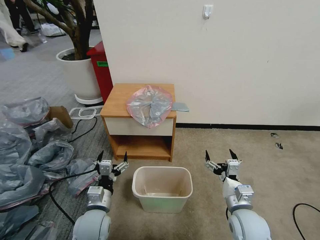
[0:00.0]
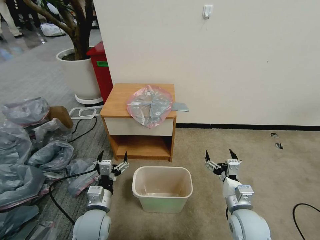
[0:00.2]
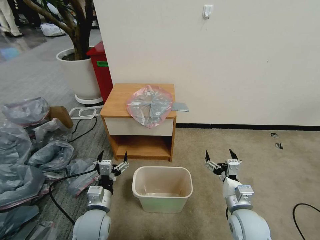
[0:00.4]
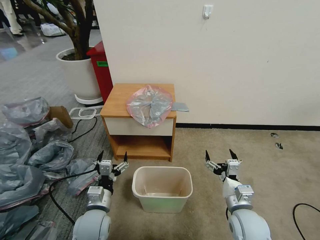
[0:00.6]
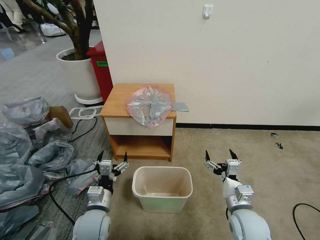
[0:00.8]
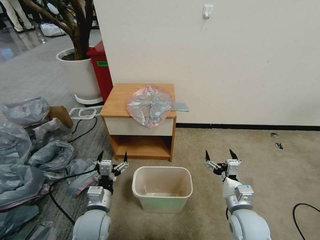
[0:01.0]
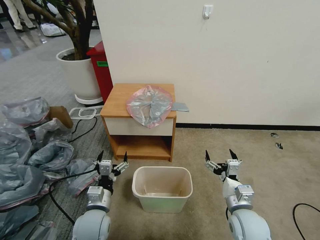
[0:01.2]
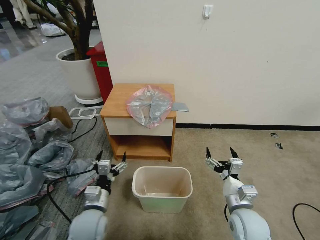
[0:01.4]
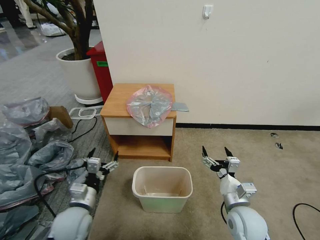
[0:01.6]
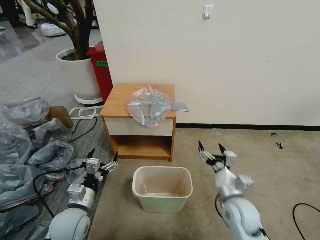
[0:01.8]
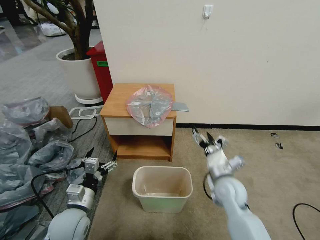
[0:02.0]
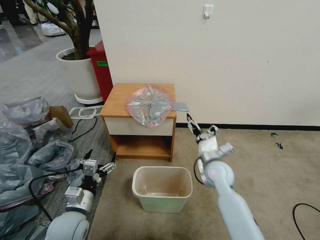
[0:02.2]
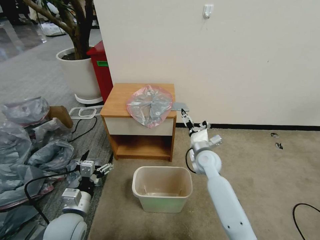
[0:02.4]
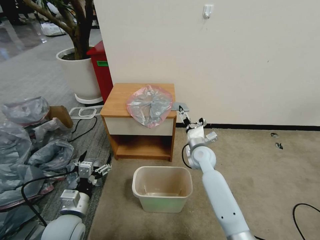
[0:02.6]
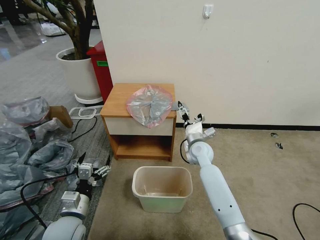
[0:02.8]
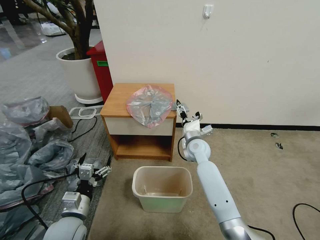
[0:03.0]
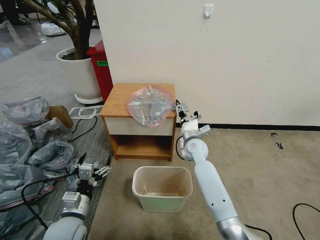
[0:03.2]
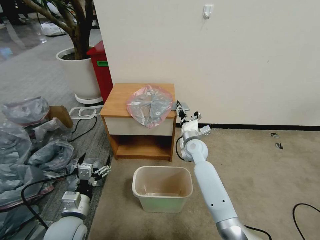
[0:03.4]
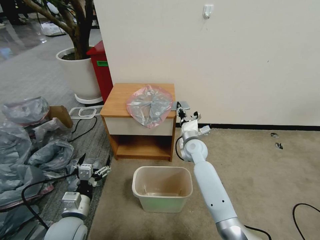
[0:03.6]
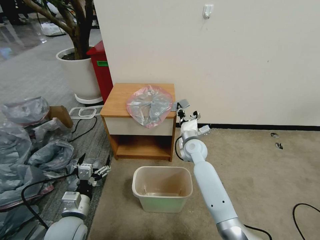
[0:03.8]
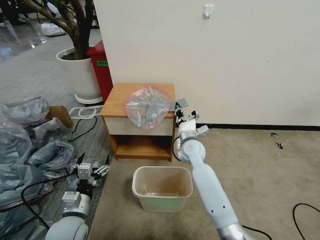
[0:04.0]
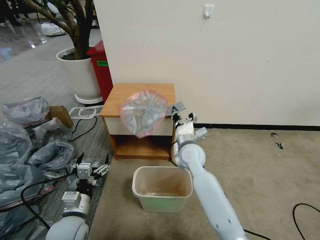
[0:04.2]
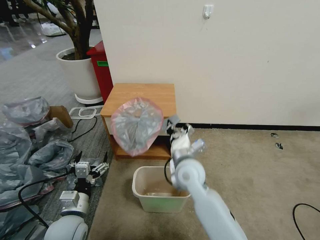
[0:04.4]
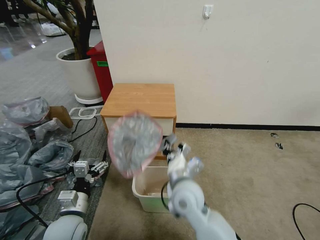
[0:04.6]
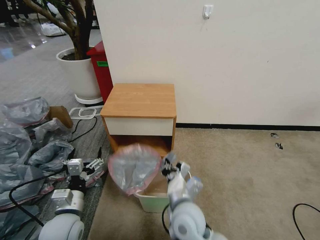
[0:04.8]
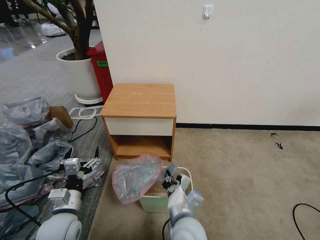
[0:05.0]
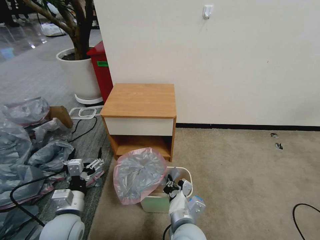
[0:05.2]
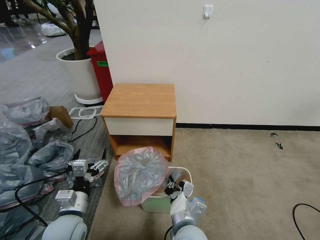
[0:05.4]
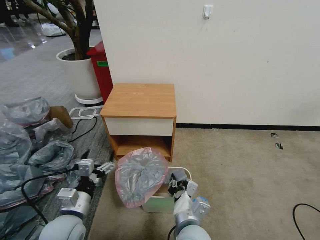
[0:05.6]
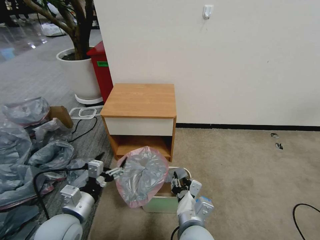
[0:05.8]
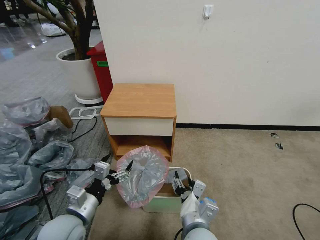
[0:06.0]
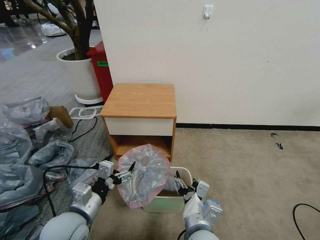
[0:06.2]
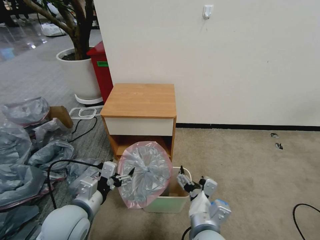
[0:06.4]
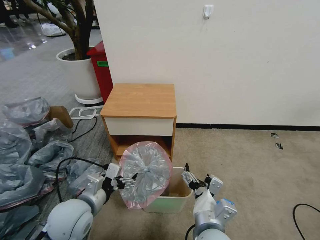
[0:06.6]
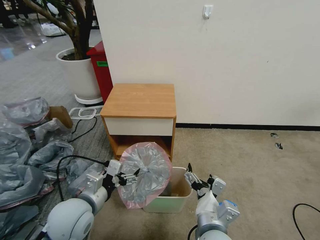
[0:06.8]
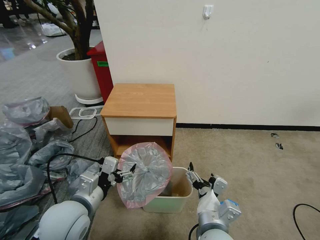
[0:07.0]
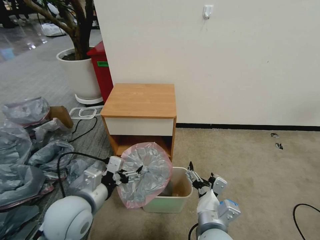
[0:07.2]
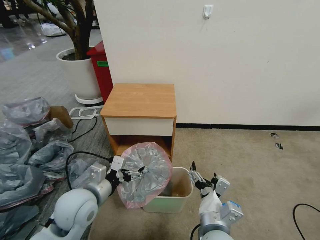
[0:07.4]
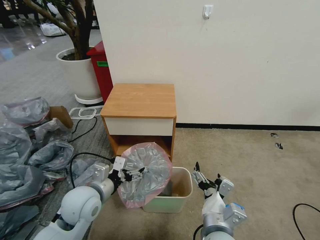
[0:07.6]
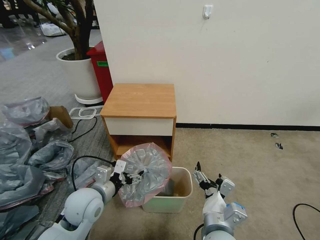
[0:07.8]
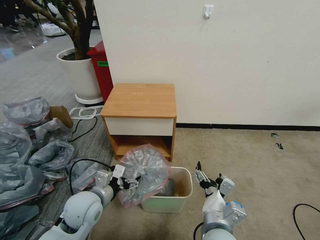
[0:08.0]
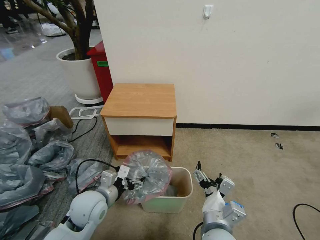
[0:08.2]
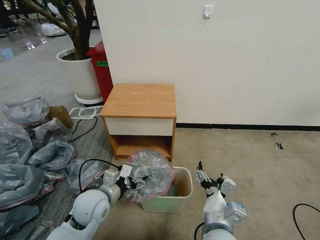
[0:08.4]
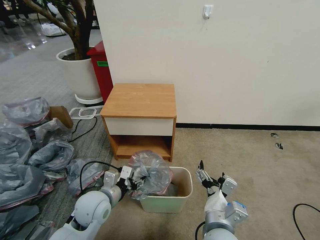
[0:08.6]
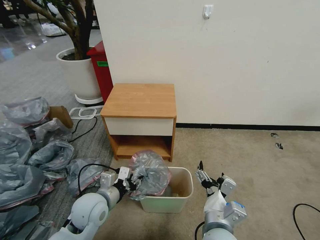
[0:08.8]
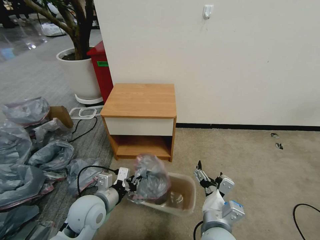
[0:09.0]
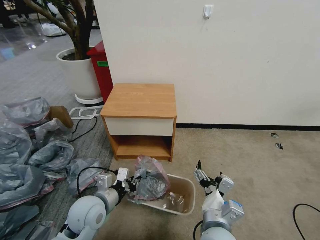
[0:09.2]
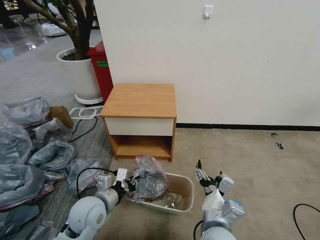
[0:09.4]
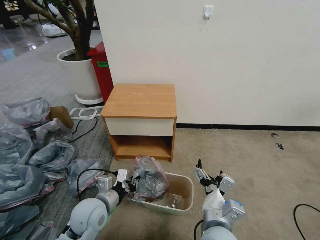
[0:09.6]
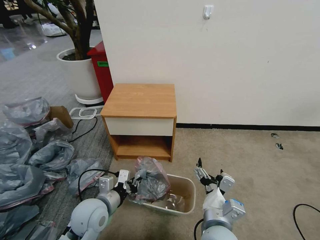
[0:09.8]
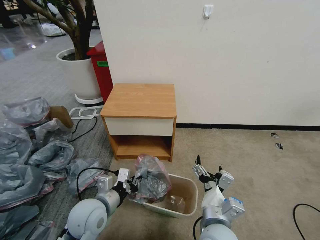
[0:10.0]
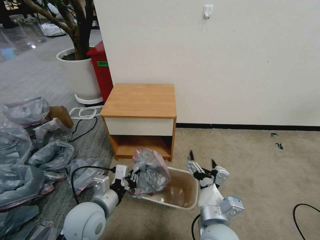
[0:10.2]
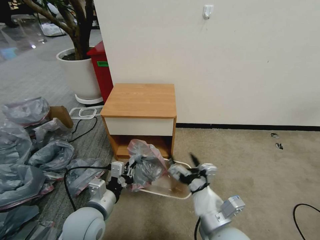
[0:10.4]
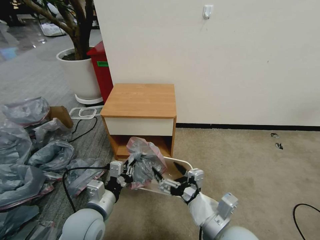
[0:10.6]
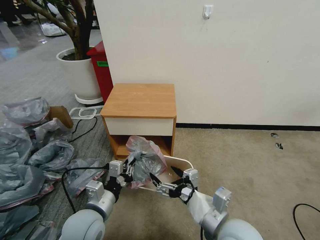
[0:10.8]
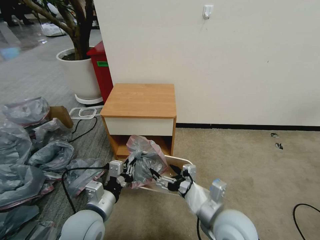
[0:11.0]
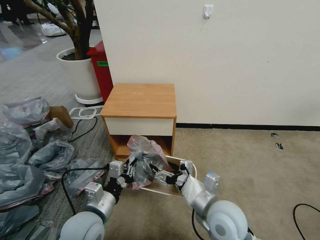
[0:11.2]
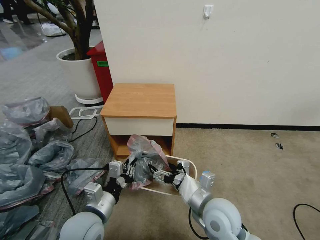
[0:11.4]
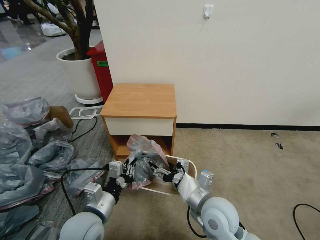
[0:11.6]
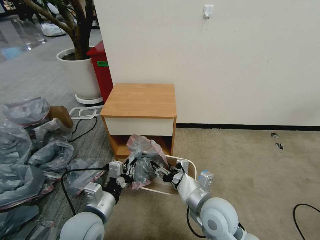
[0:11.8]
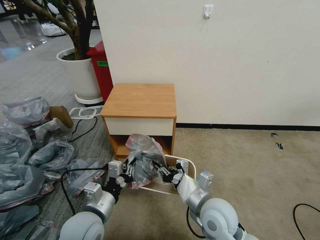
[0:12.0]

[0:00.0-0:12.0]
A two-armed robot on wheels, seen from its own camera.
Task of the whole recording: Pick up the garbage bag from the table and place it over the trash can.
0:01.6 to 0:03.0: The right gripper heads forward, covering roughly 25 cm.
0:03.0 to 0:04.4: The right gripper goes some 15 cm backward, to the left and upward, and closes its fingers.
0:04.4 to 0:06.0: The right gripper moves backward, roughly 20 cm, and opens, while the left gripper moves upward, some 5 cm.
0:06.0 to 0:07.6: The left gripper goes roughly 5 cm forward.
0:07.6 to 0:09.0: The left gripper closes up.
0:10.4 to 0:12.0: The right gripper moves forward, some 10 cm, and closes up.

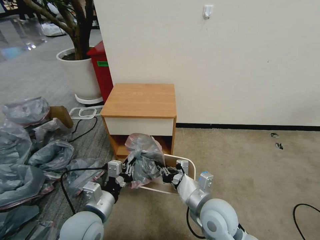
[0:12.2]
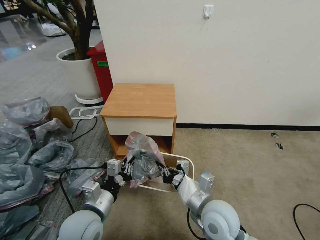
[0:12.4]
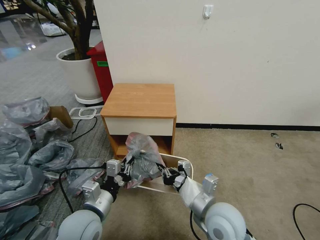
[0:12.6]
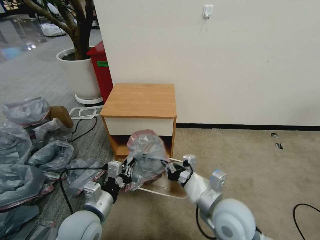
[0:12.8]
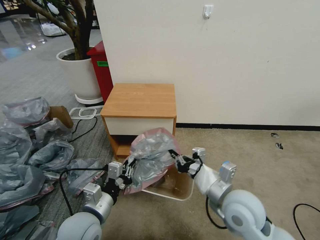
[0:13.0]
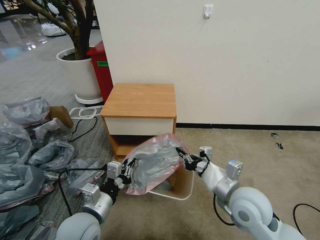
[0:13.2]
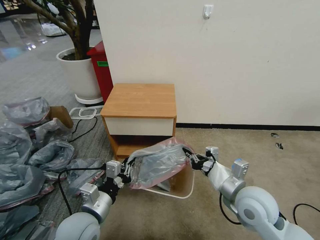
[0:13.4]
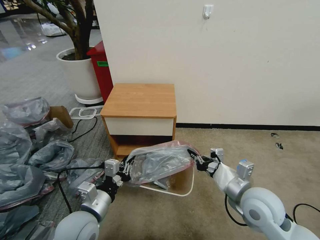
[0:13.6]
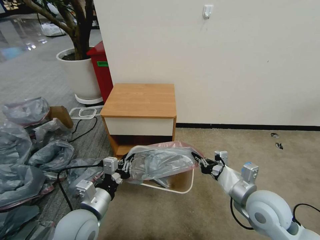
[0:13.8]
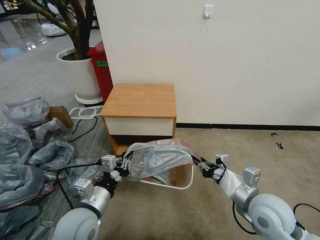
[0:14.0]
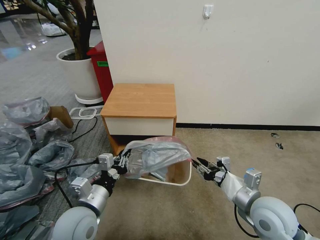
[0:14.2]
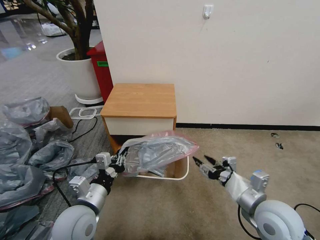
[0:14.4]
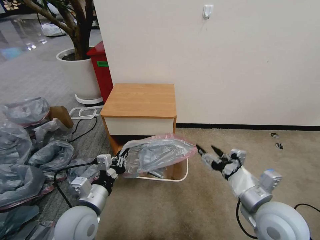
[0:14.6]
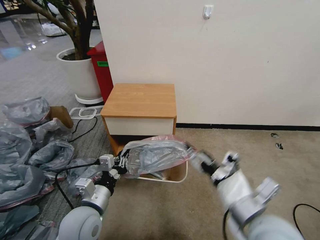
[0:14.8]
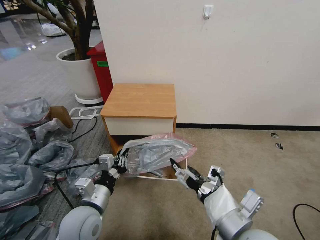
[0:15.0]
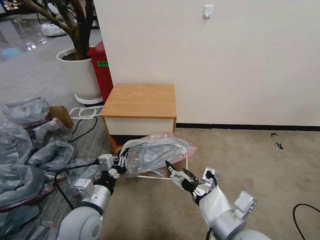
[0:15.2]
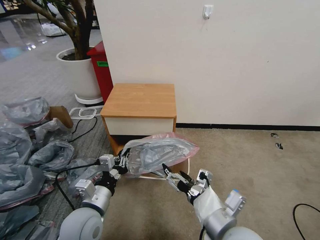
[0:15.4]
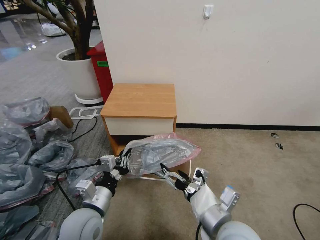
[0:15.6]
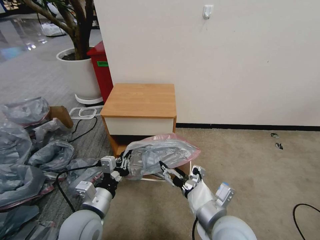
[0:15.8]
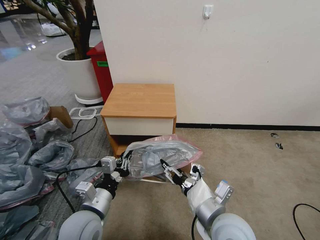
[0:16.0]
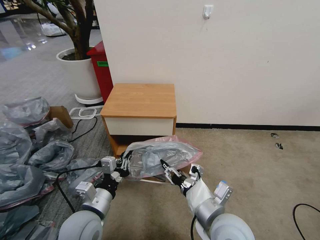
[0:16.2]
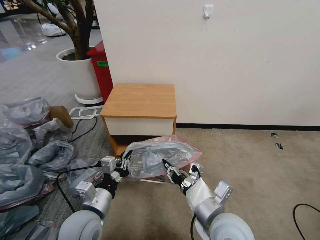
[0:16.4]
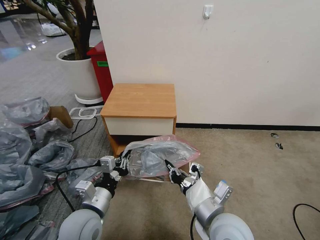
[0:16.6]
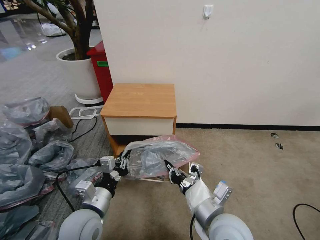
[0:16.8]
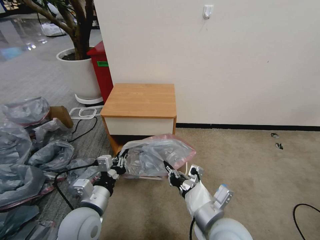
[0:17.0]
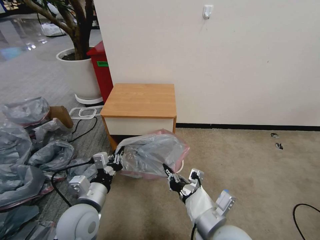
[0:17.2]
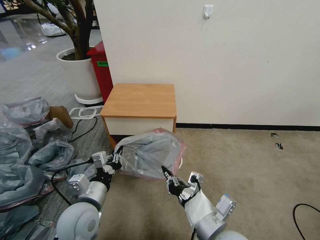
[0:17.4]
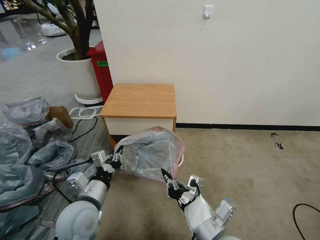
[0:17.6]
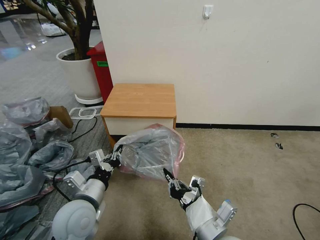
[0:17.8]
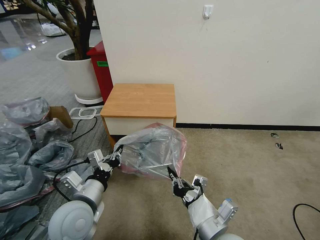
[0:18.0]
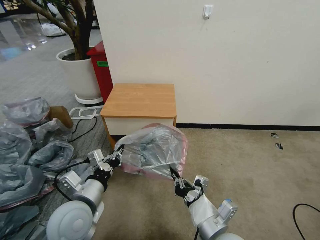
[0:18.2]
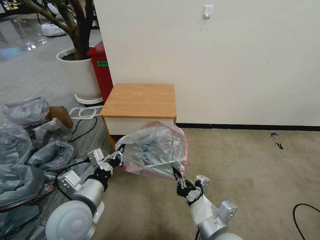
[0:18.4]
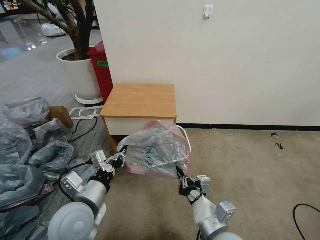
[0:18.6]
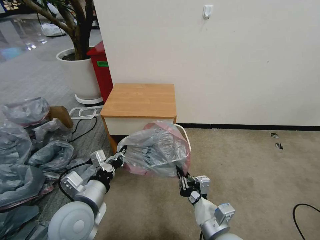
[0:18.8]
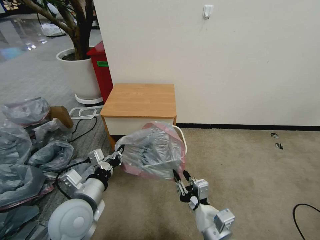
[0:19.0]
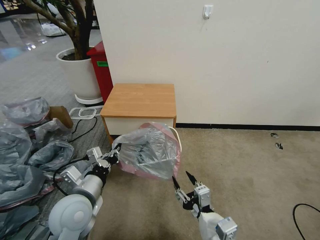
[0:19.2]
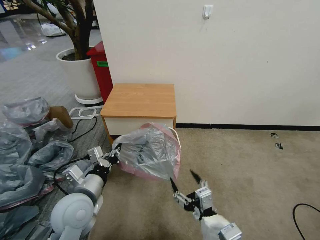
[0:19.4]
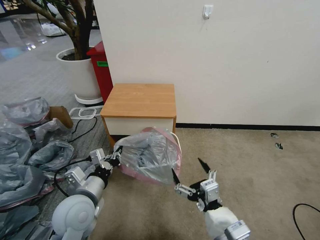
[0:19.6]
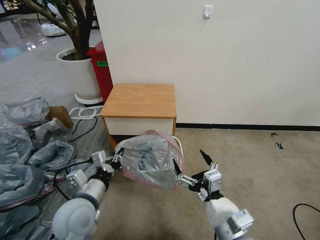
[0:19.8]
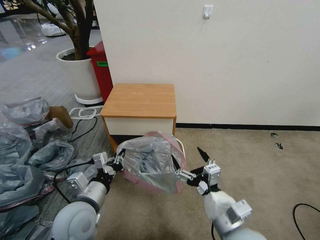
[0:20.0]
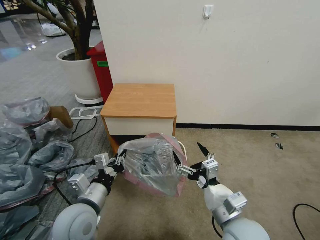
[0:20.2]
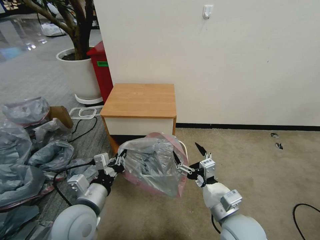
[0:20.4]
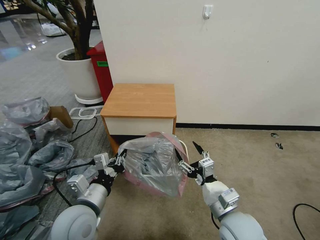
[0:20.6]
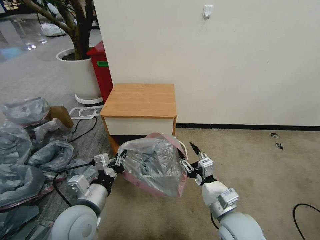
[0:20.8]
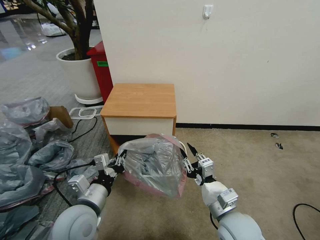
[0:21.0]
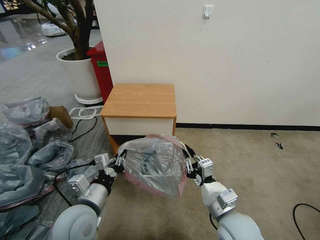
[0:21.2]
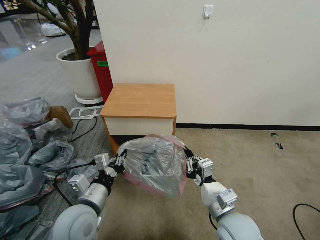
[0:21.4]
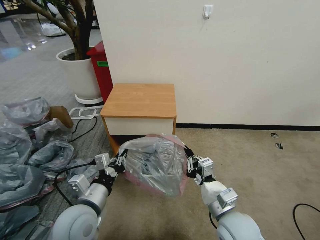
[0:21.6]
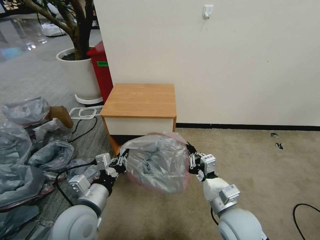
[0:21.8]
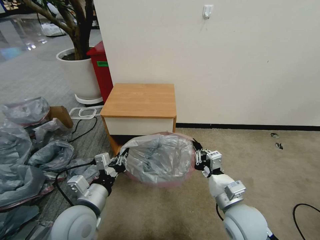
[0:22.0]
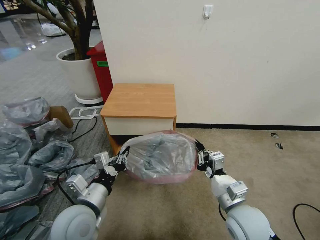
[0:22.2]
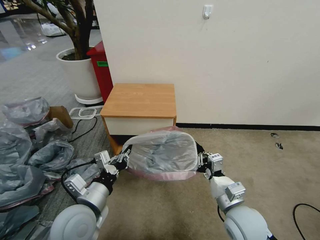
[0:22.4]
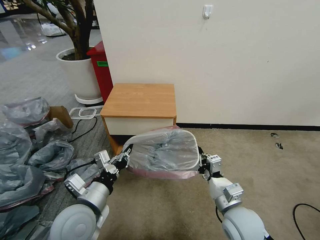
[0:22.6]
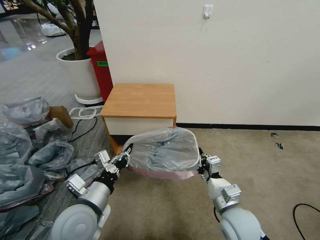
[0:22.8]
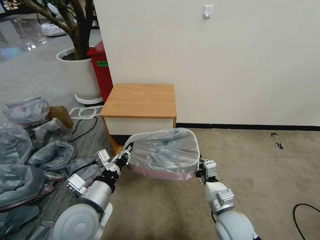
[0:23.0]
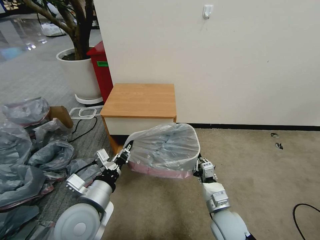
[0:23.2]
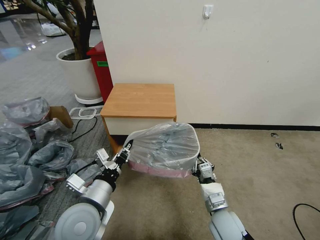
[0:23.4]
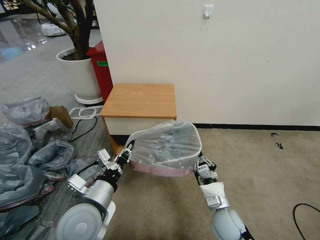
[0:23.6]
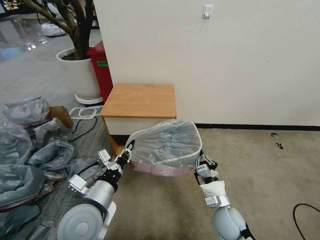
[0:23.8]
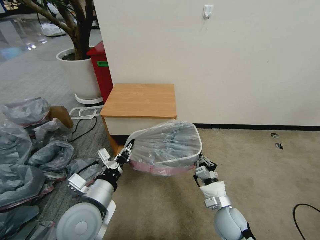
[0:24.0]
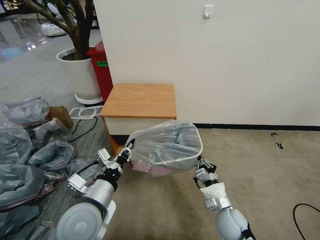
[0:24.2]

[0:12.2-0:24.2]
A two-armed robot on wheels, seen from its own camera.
Task of the whole recording: Pick up the garbage bag from the table and place it over the trash can.
0:12.2 to 0:13.8: The right gripper moves to the right, roughly 10 cm.
0:13.8 to 0:15.2: The right gripper travels to the left and backward by some 15 cm, and opens up.
0:15.2 to 0:16.6: The right gripper moves roughly 5 cm, and closes.
0:18.2 to 0:19.8: The right gripper opens up.
0:19.8 to 0:21.2: The right gripper travels forward by about 5 cm, and closes.
0:21.2 to 0:22.6: The grippers move only a little.
0:22.6 to 0:24.2: The right gripper heads downward, covering about 10 cm.
